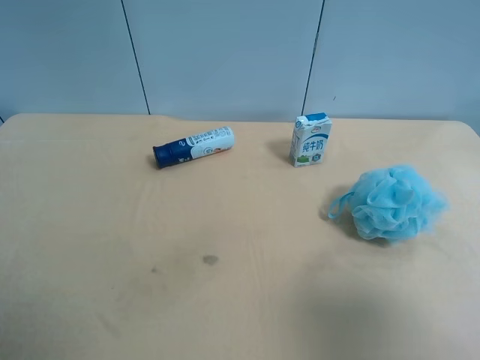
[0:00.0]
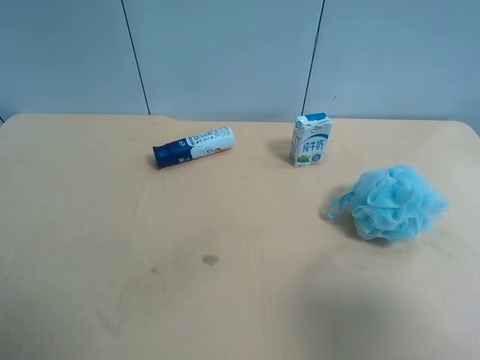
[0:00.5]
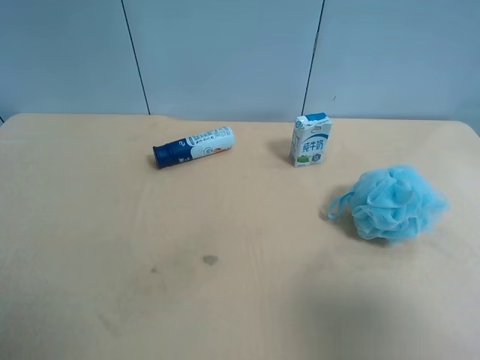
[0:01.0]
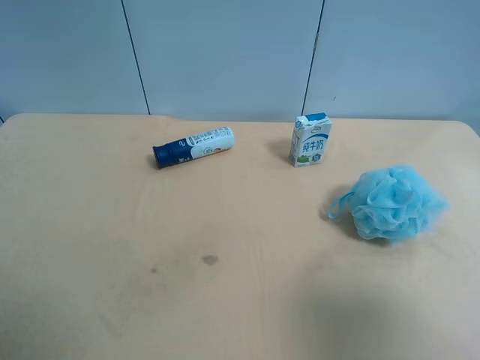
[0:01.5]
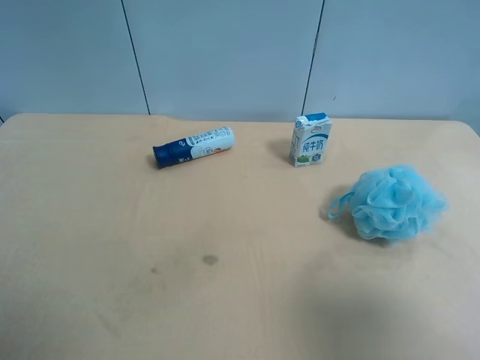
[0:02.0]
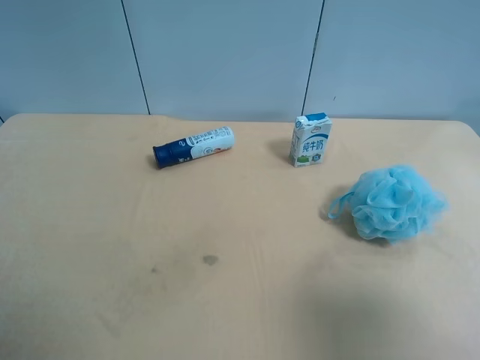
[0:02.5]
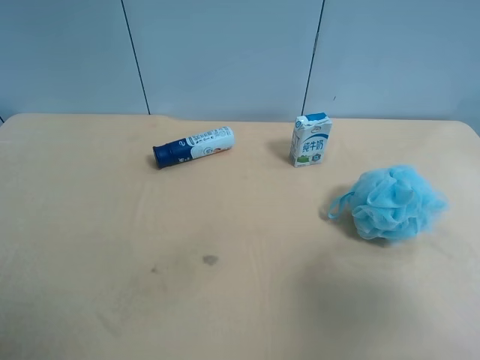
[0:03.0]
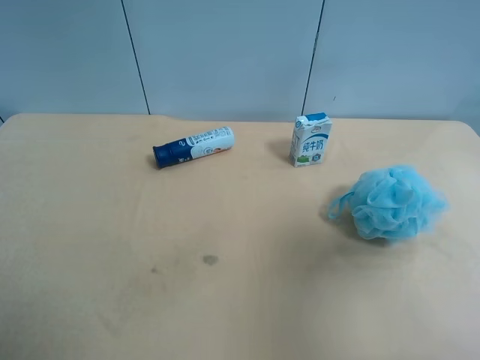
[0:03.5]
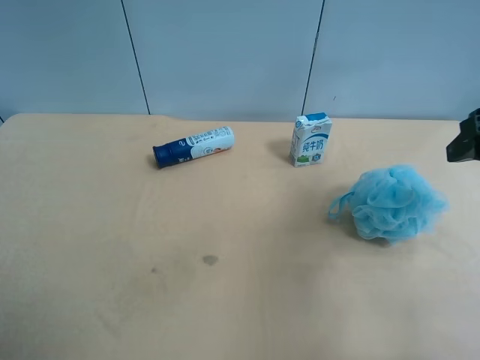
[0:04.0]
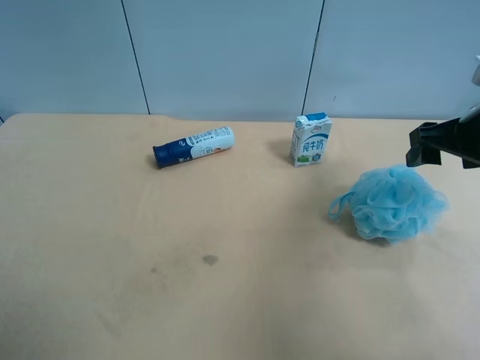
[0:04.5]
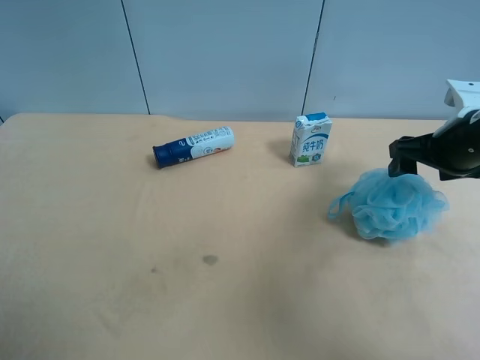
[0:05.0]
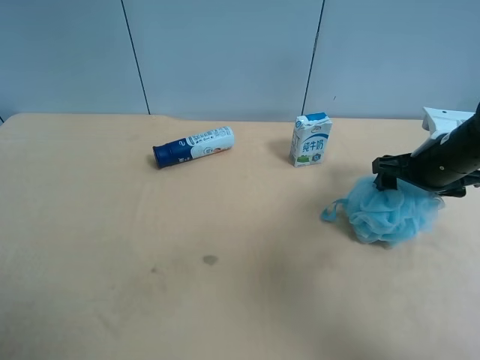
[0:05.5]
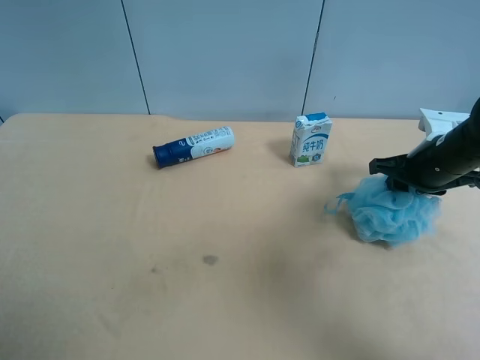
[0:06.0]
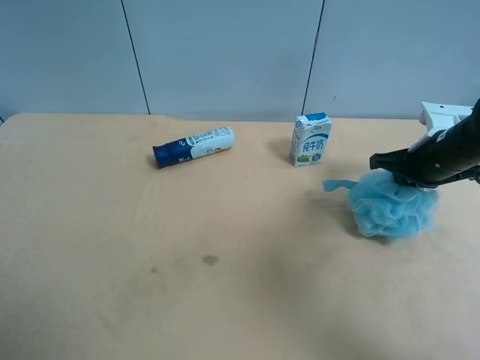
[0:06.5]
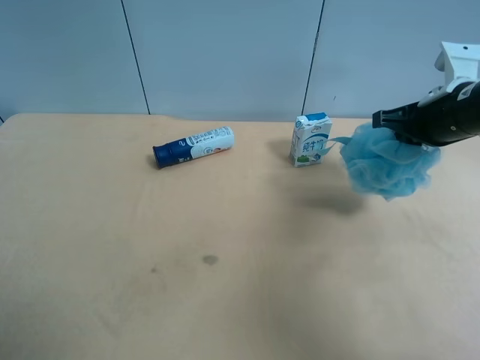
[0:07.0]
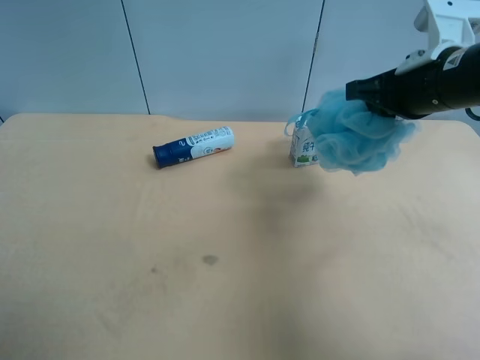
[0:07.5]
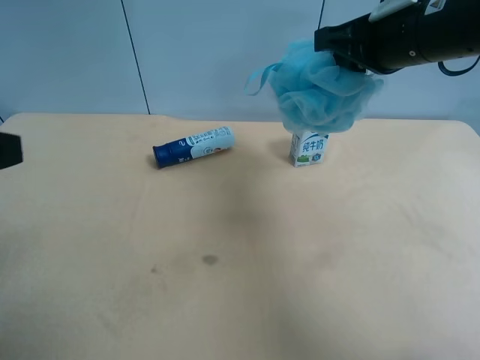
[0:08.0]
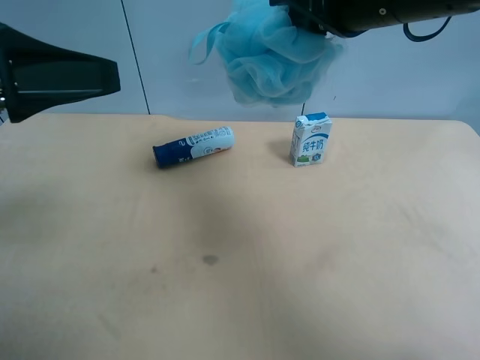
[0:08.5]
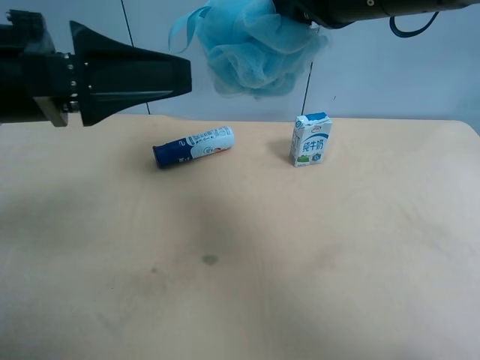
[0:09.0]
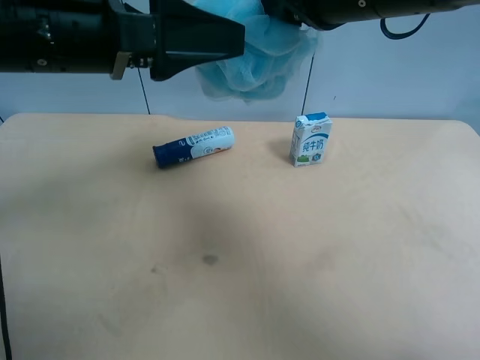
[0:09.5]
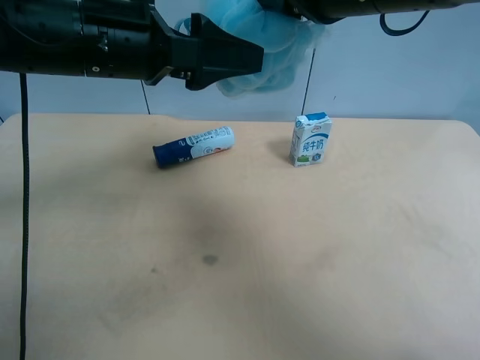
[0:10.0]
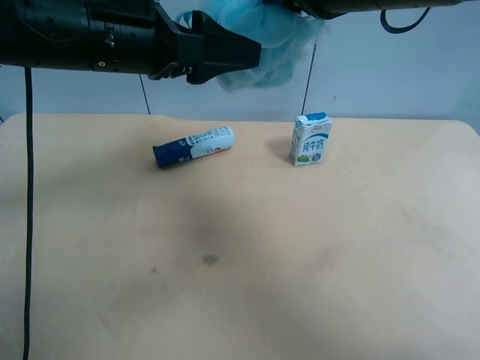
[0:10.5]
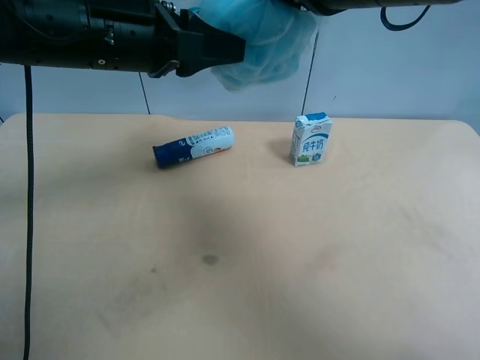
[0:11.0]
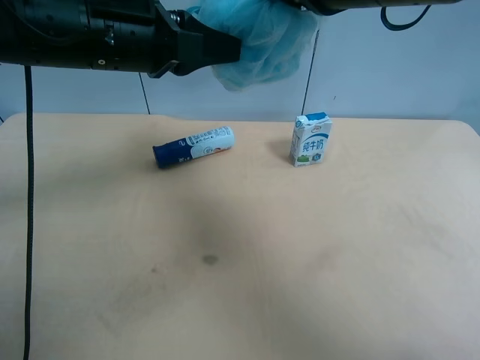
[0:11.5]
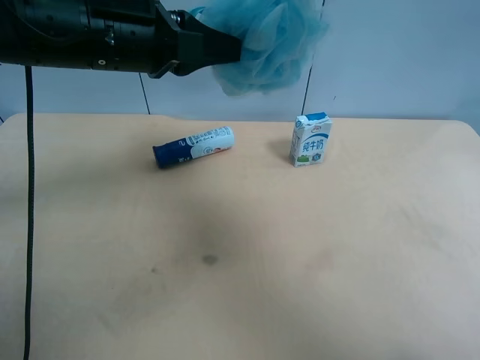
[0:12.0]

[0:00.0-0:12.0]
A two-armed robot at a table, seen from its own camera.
Task of the whole recording: use the right gripper to pick up the item and transfer it from the right gripper to the left gripper.
0:00.0 to 0:02.0: Both grippers stay about where they are.
0:02.0 to 0:04.0: The right gripper shifts roughly 20 cm forward.
0:04.0 to 0:06.0: The right gripper goes about 20 cm downward and forward, and closes.
0:06.0 to 0:08.0: The right gripper goes roughly 20 cm upward and to the left, and closes its fingers. The left gripper moves forward, approximately 10 cm.
0:08.0 to 0:10.0: The left gripper is displaced forward and to the right by approximately 20 cm. The right gripper heads to the left, covering roughly 5 cm.
0:10.0 to 0:12.0: The right gripper opens its fingers; the left gripper closes up.

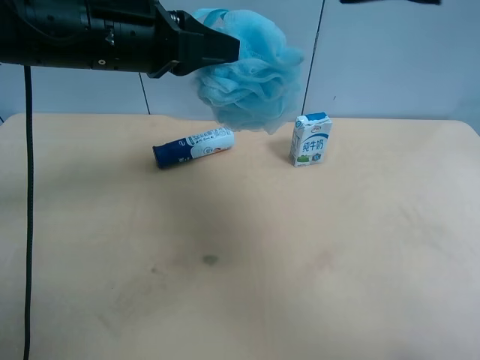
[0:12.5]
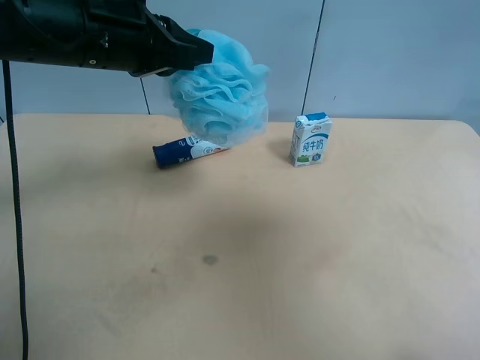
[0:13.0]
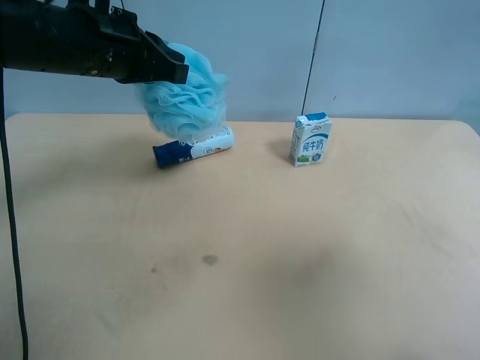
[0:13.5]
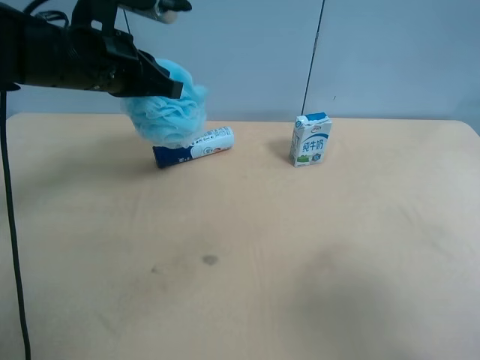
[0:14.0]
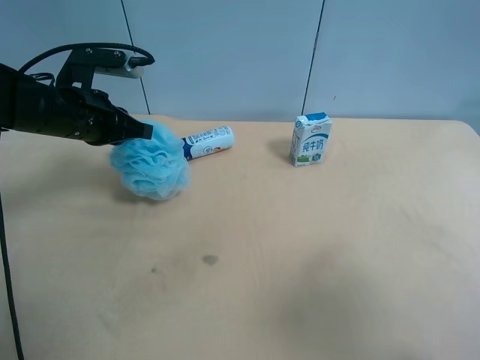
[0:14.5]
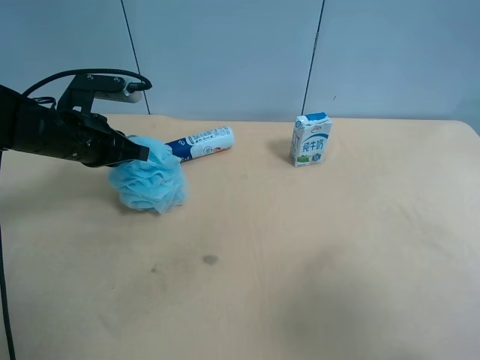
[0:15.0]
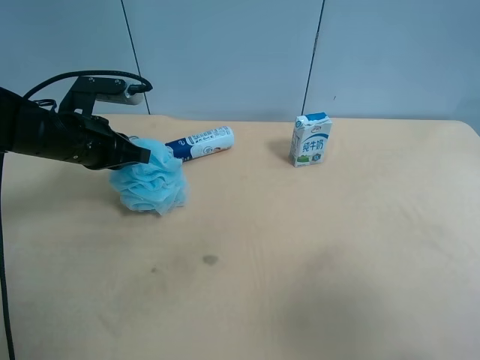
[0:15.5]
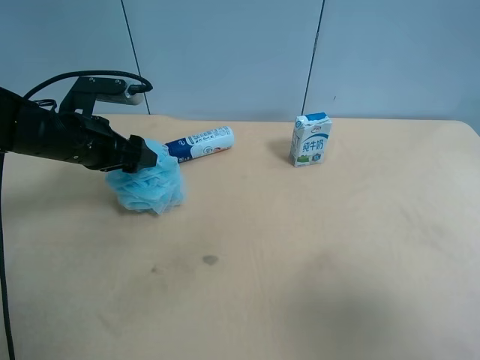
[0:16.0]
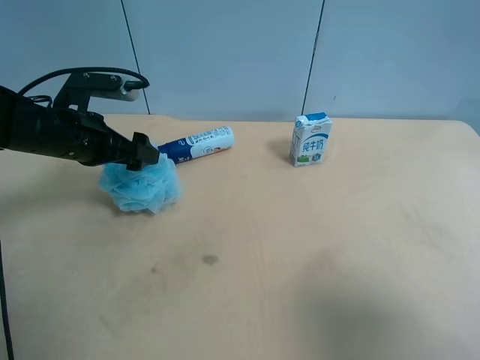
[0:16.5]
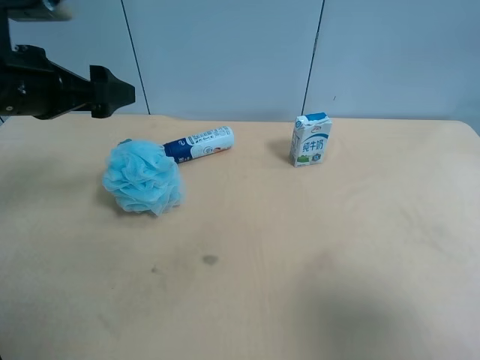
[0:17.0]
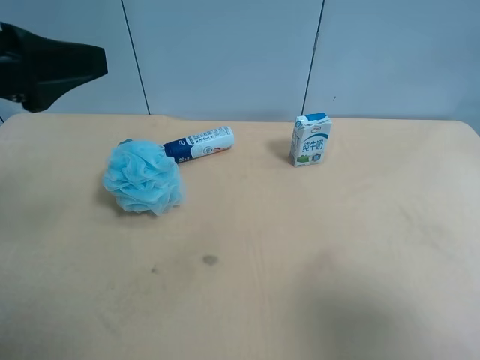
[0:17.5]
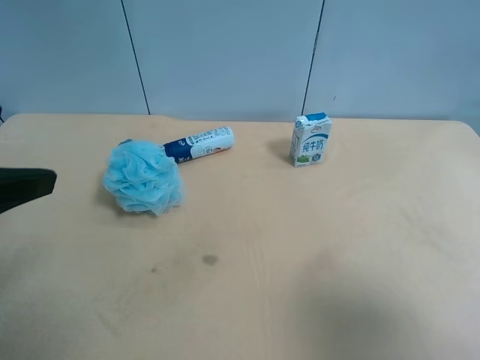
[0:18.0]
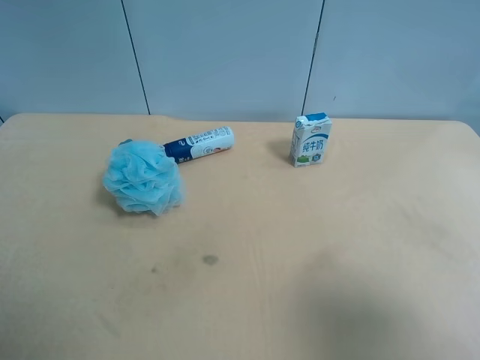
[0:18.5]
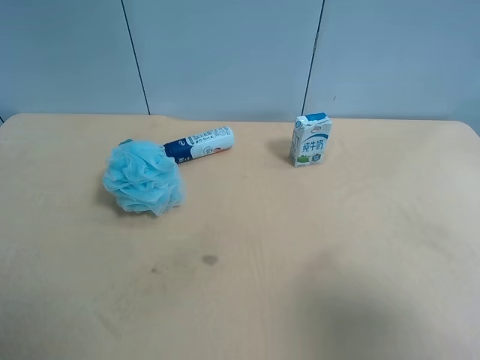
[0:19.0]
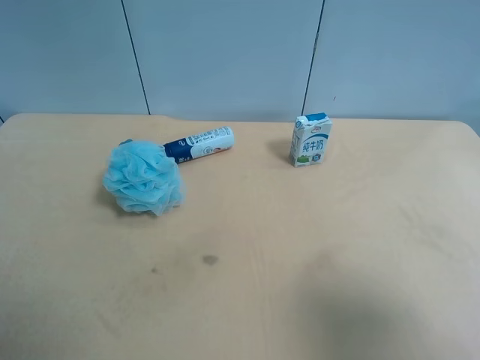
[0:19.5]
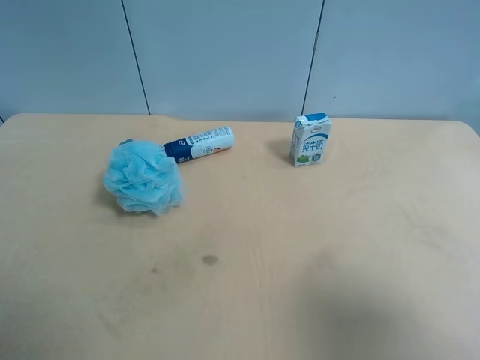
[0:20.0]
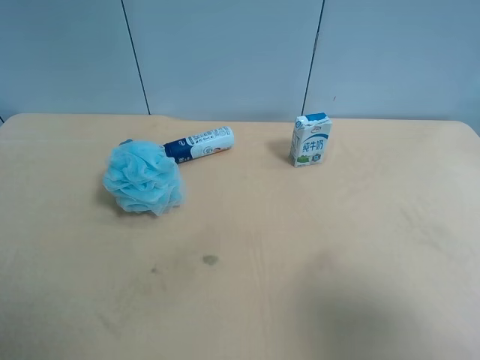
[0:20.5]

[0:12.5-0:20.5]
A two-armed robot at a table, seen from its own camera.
Task of the whole recording: use the right gripper to pick up the item and transfer it from the right gripper to the left gripper.
0:12.5 to 0:14.5: The right gripper travels backward, to the right and downward by approximately 25 cm. Meanwhile the left gripper travels downward and to the left by approximately 15 cm.
0:14.5 to 0:16.5: The left gripper opens its fingers.
0:16.5 to 0:18.5: The left gripper goes roughly 30 cm backward and upward.
